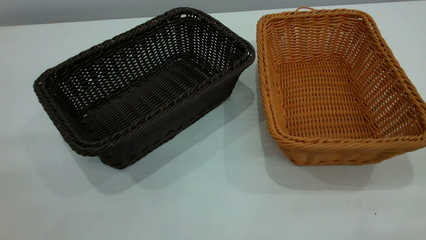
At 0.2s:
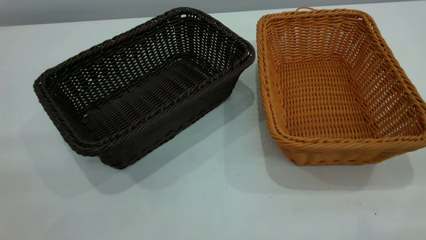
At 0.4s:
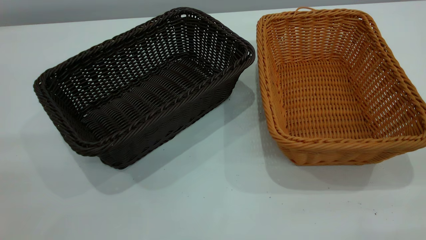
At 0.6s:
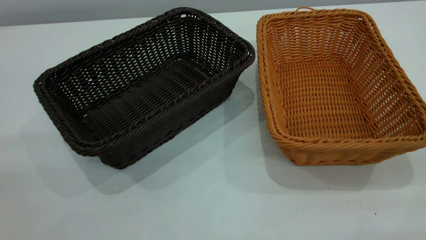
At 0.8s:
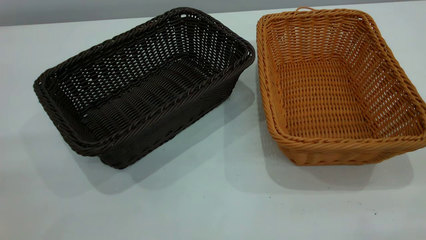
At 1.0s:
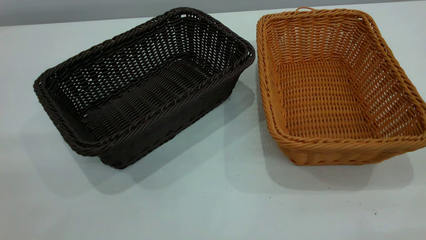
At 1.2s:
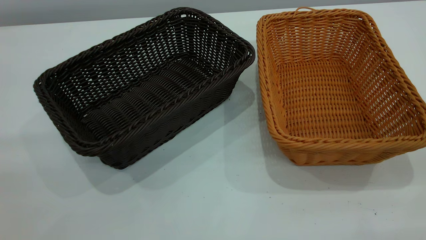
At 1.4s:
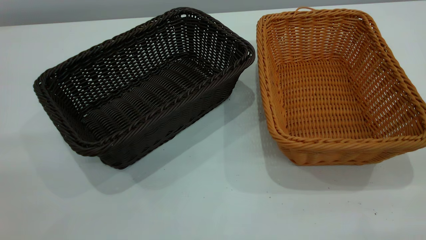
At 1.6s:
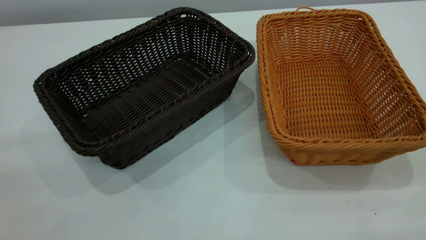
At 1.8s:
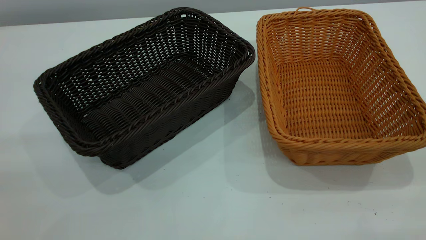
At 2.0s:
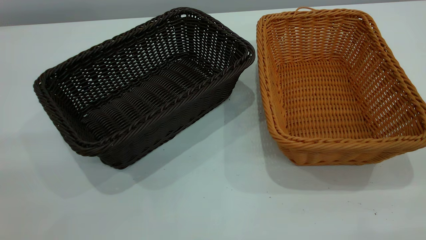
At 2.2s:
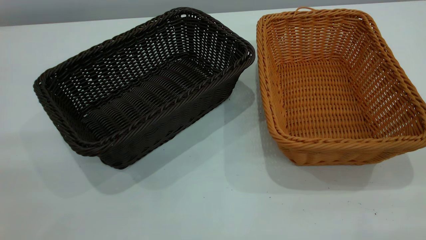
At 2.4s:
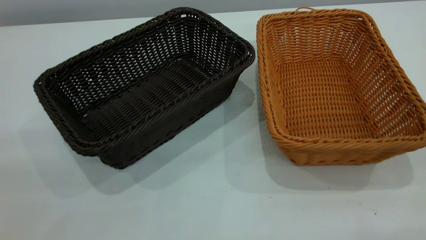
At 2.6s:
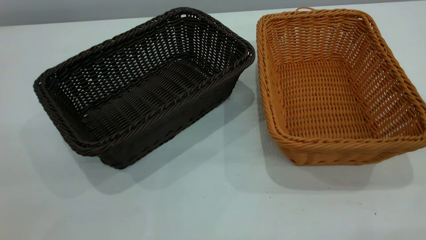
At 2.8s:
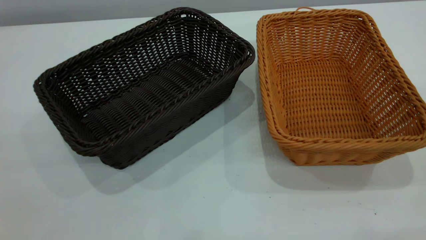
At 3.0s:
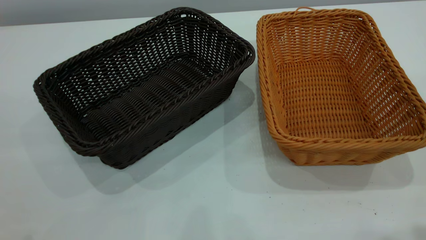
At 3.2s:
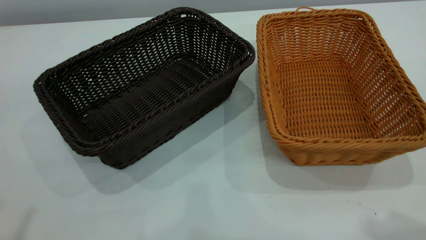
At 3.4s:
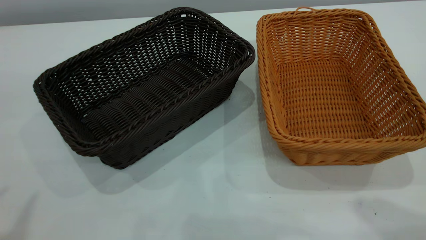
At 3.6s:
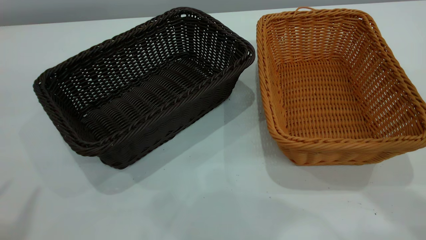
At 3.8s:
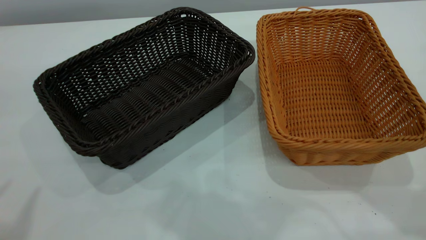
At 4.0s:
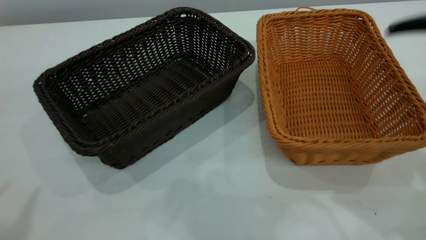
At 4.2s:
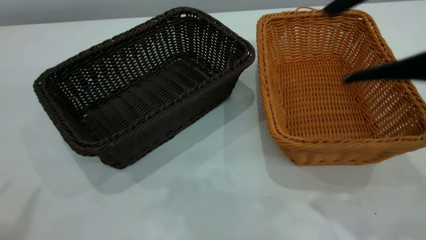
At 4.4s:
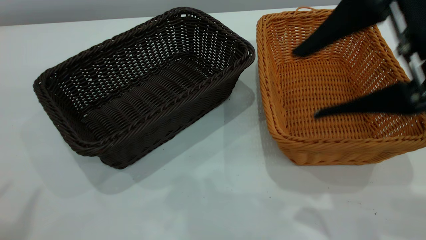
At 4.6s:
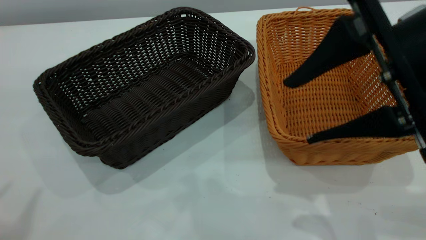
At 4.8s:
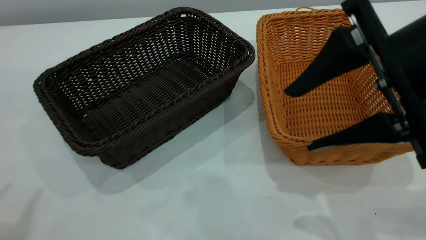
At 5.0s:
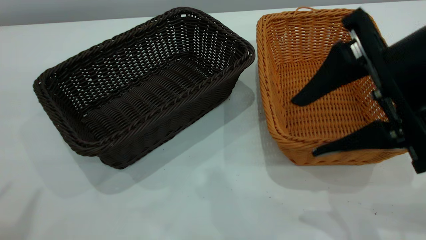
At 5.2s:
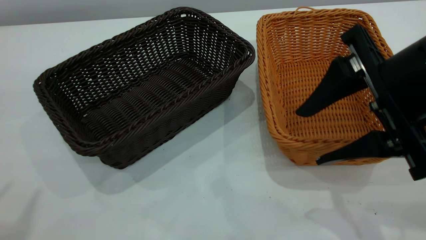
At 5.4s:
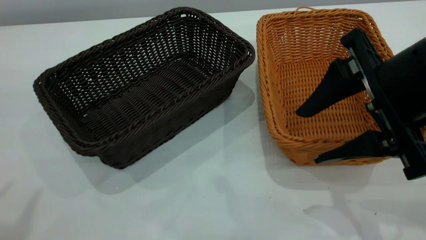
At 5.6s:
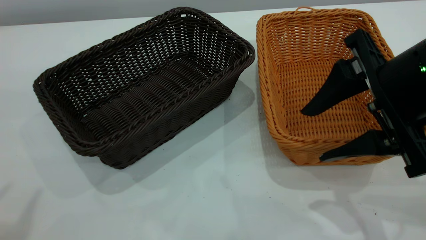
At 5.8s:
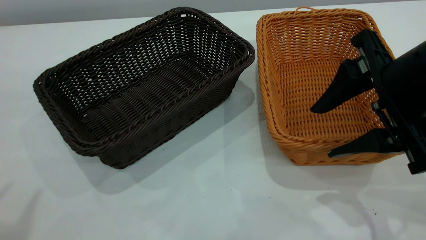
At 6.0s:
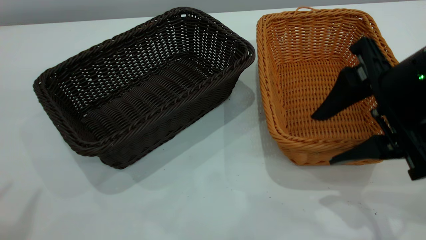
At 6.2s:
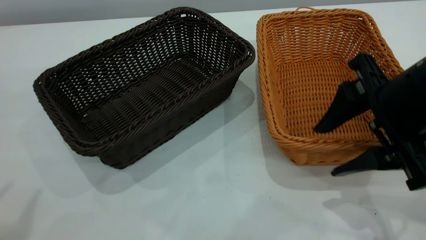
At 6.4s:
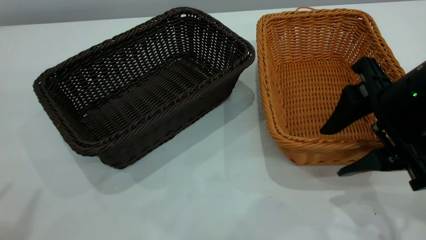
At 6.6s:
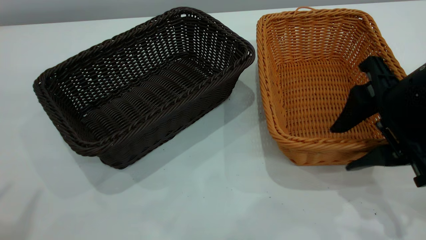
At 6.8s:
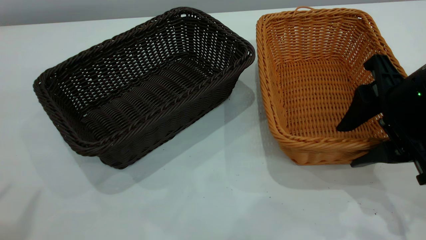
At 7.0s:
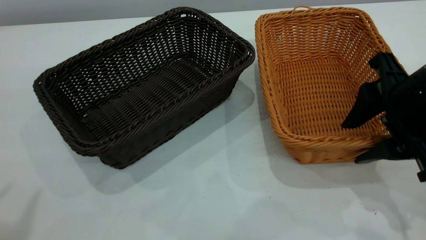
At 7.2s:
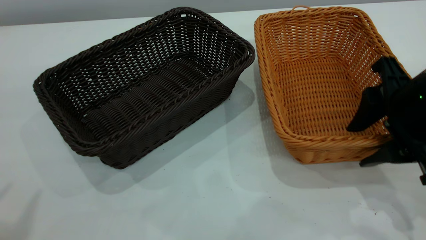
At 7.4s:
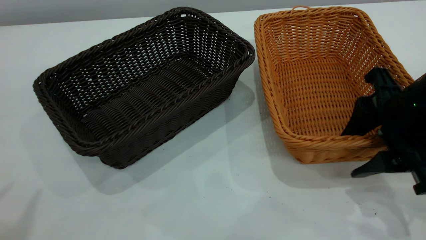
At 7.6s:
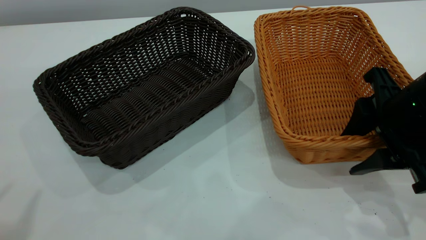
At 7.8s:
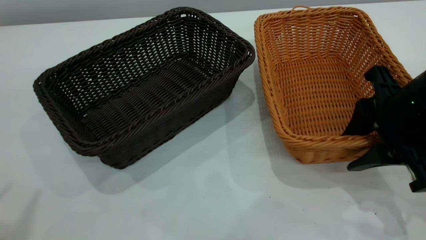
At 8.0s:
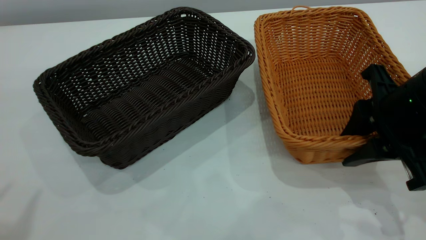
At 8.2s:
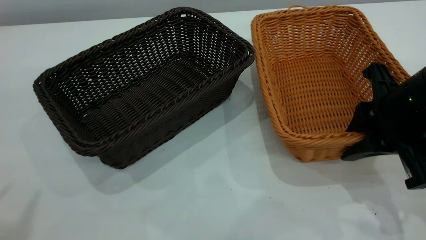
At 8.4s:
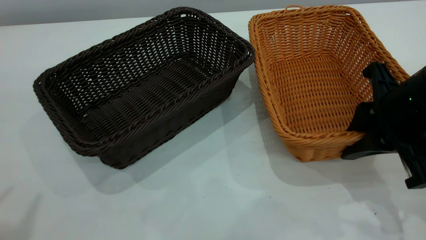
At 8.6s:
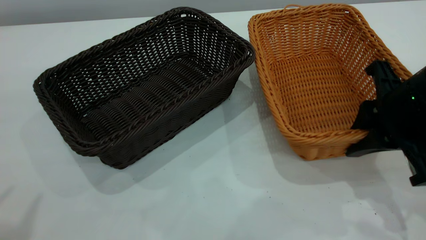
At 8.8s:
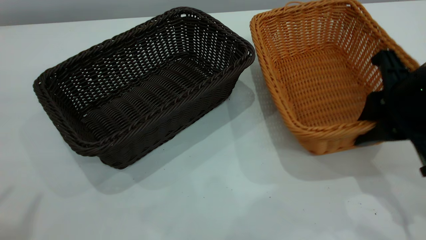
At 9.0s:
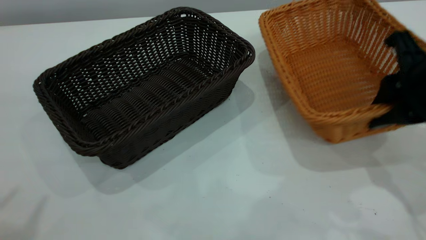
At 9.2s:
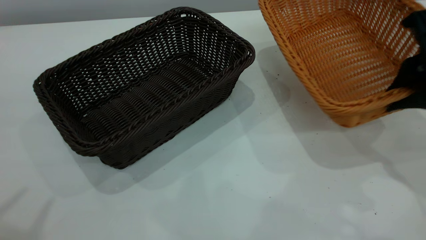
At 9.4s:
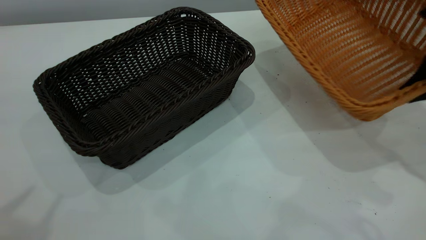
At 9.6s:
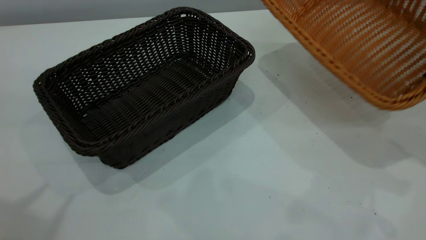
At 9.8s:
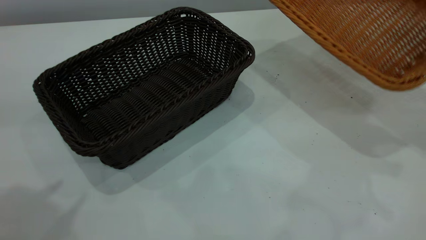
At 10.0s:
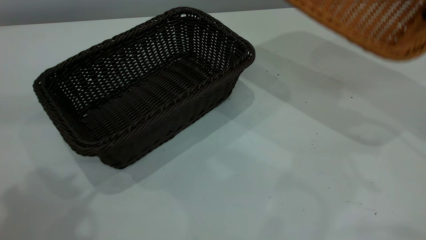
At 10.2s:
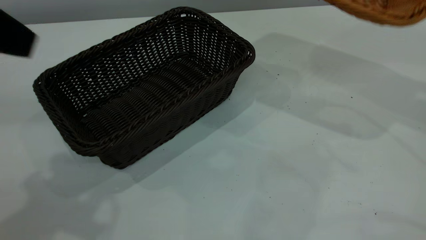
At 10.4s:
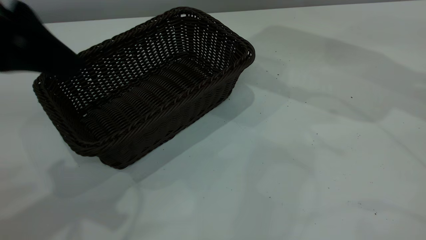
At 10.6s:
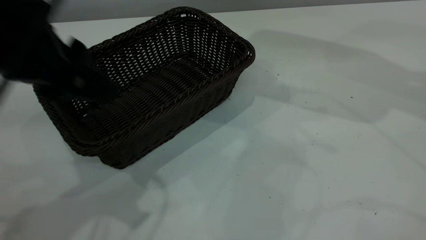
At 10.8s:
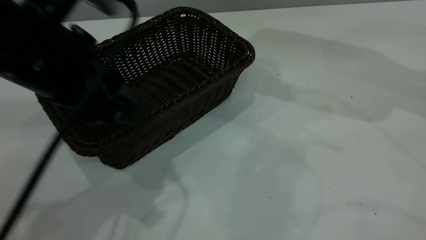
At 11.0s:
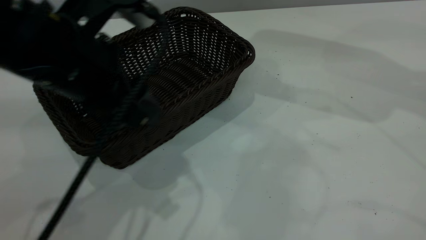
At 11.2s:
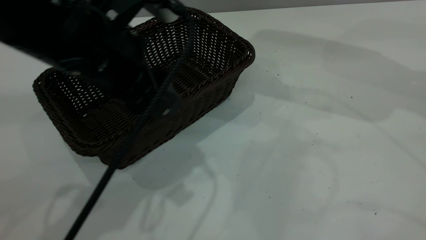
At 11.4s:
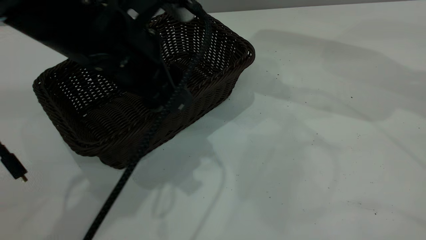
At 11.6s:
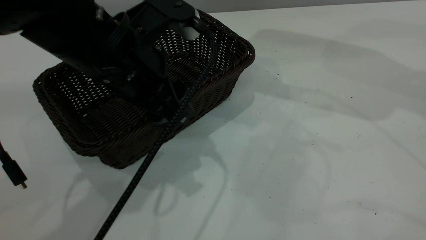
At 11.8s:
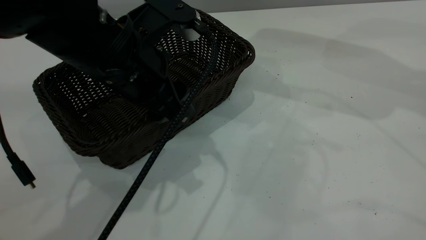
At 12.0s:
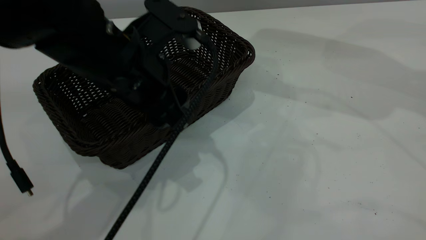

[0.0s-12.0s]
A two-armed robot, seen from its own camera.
Task of the whole recording: the left gripper grasp the black basket and place it in the center of the table, the right gripper grasp the brown basket and place it inside the black one.
Step, 4.0s to 8.0s: Grasp the light basket with right gripper.
0.0s to 1.6s: Both grippers stay put.
3.0s to 4.4s: The right gripper travels downward, forward and to the left by roughly 20 cm.
4.4s to 6.0s: The right gripper travels downward by about 5 cm.
6.0s to 7.6s: The grippers stay close to where they were, moving slightly.
7.6s to 9.0s: The right gripper closes.
9.0s to 10.4s: The right gripper travels upward, forward and to the right by approximately 20 cm, while the left gripper shifts approximately 15 cm downward, forward and to the right.
10.4s to 12.0s: The left gripper travels downward, to the right and forward by about 15 cm.

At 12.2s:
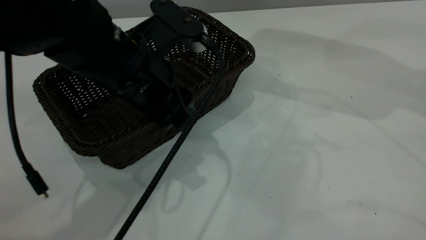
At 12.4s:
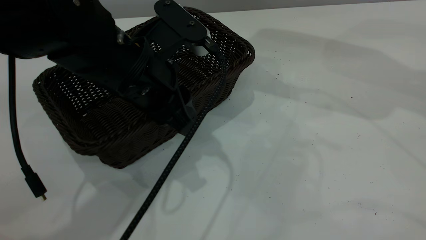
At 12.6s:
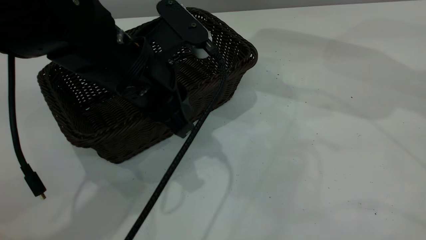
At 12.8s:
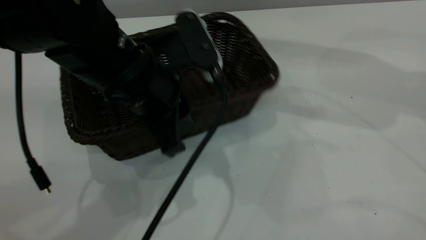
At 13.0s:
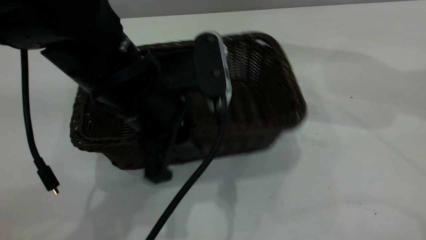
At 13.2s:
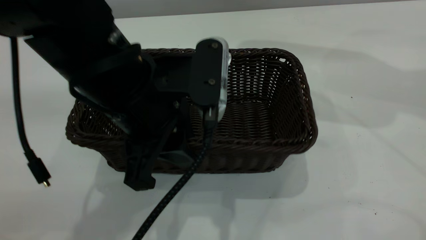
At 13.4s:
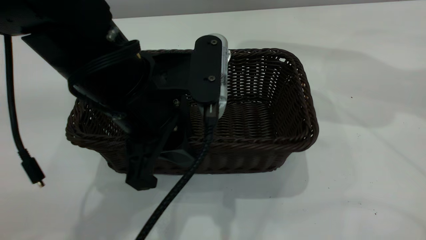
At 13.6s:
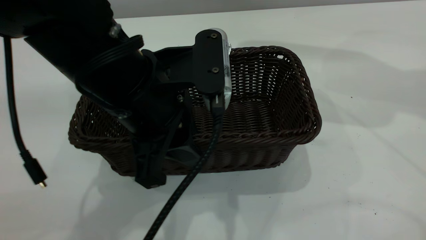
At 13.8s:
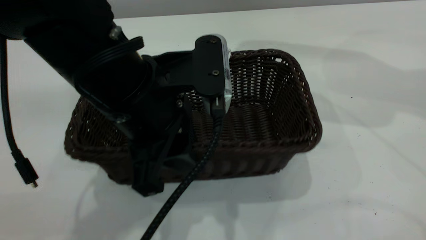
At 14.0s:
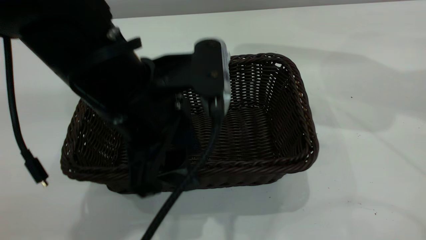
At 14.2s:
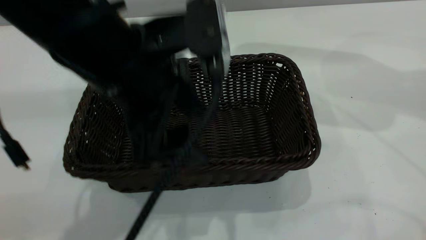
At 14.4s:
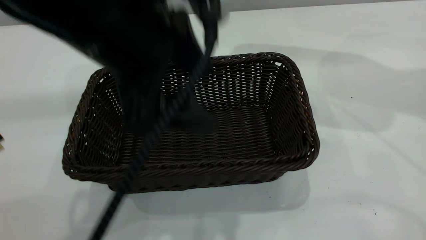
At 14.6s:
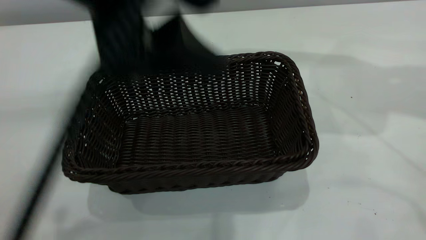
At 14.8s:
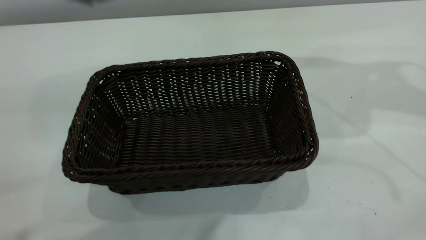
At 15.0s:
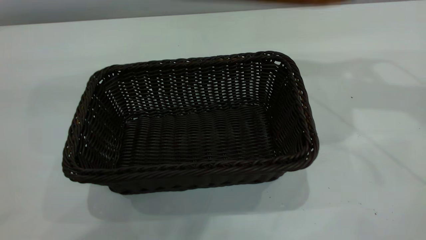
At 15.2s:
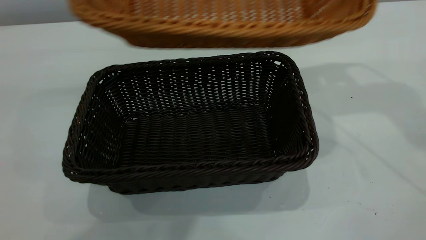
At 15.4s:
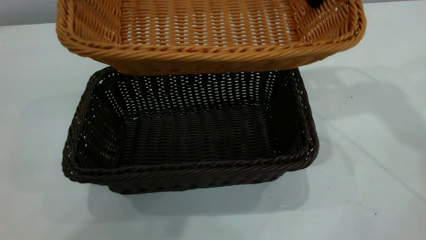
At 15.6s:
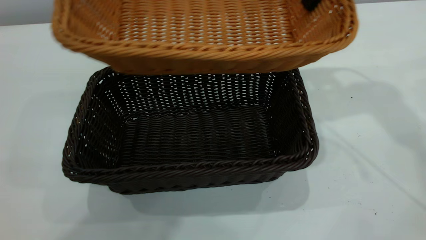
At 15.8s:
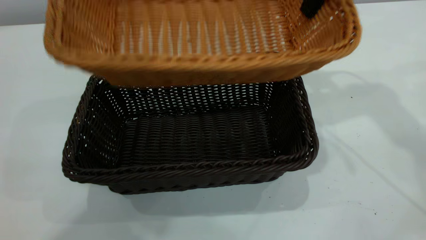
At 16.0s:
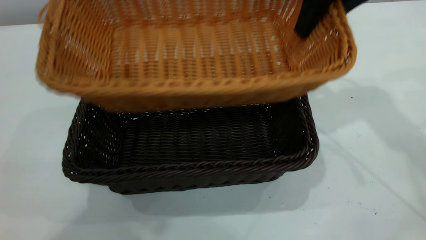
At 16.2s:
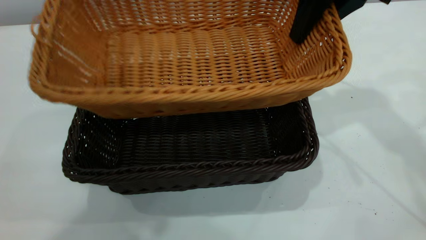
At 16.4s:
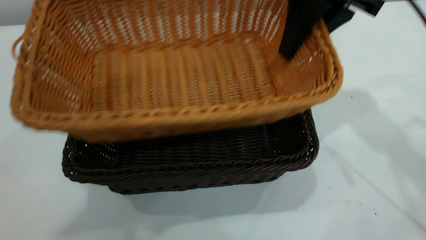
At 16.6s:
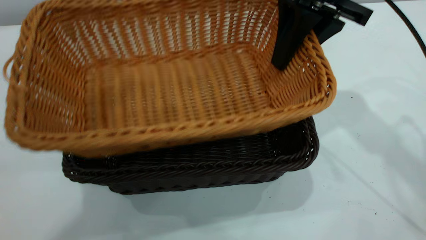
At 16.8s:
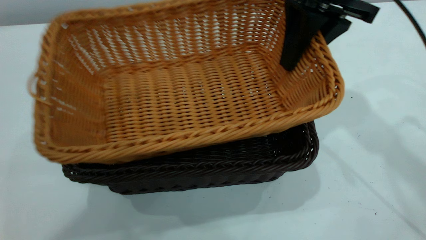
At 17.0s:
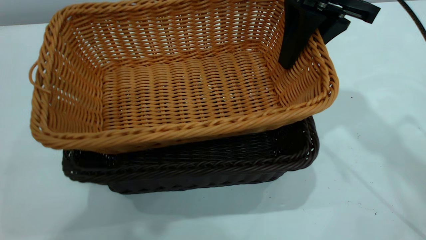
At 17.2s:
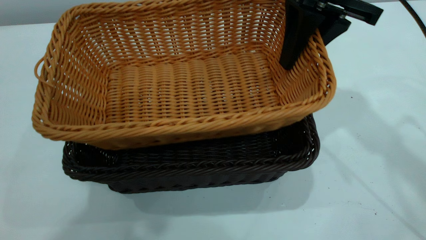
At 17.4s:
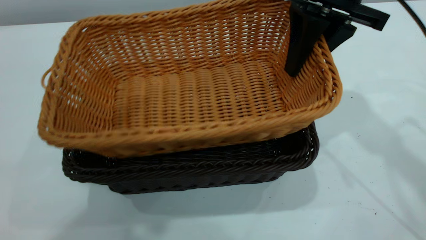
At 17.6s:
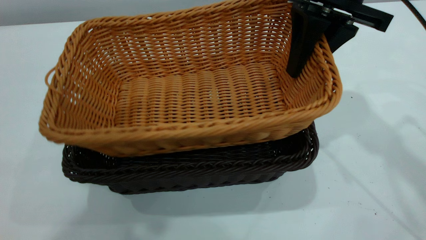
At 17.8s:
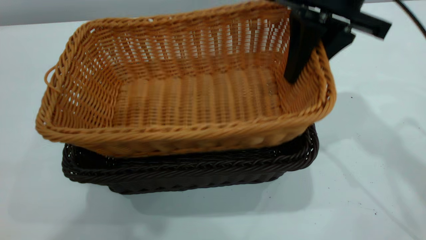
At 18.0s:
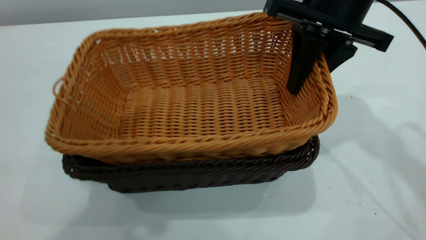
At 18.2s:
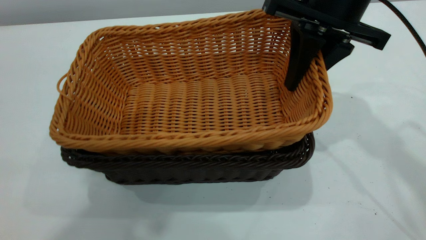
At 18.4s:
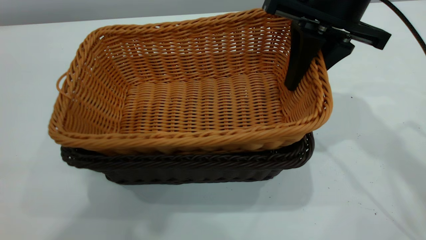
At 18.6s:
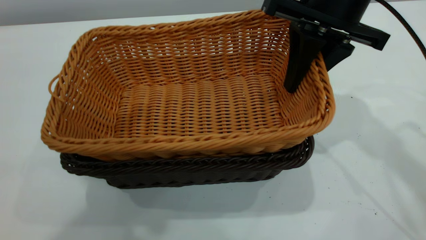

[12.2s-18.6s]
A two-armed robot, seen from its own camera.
Task of the whole recording: the left gripper grasp the black basket and place it in the center of the table, the right gripper grasp the brown basket and place it inside the black one.
Step, 12.8s to 14.0s: Place the dark basket in the center of the table with left gripper.
12.2s to 13.8s: The left gripper goes approximately 5 cm backward.
13.8s to 15.4s: The left gripper moves upward, roughly 25 cm, and opens its fingers. Meanwhile the right gripper is displaced to the left and downward by roughly 15 cm.
15.4s to 17.0s: The right gripper changes place by some 5 cm.
